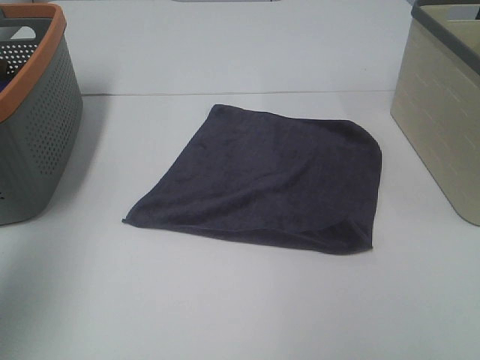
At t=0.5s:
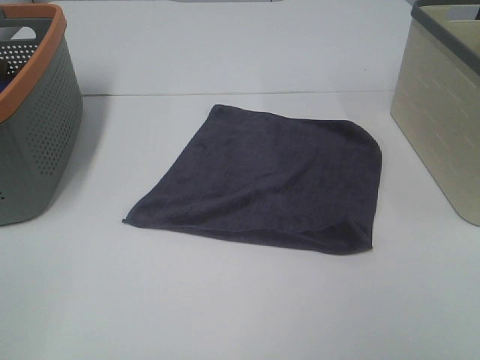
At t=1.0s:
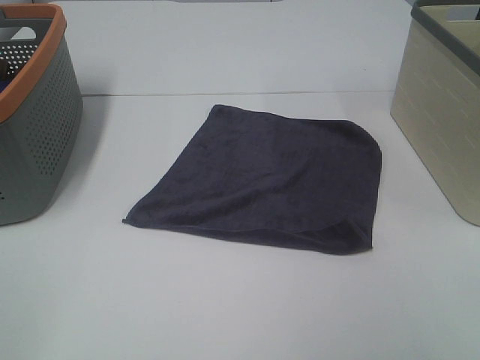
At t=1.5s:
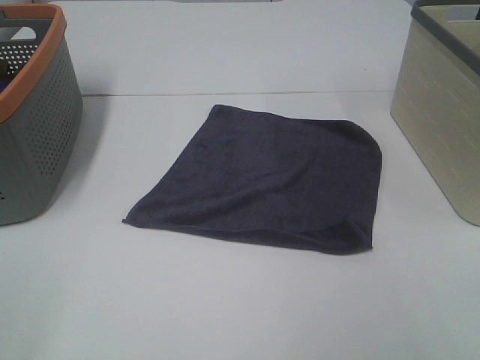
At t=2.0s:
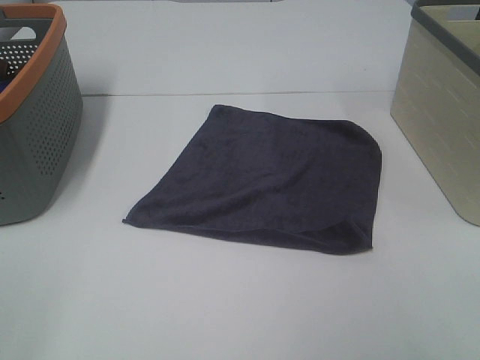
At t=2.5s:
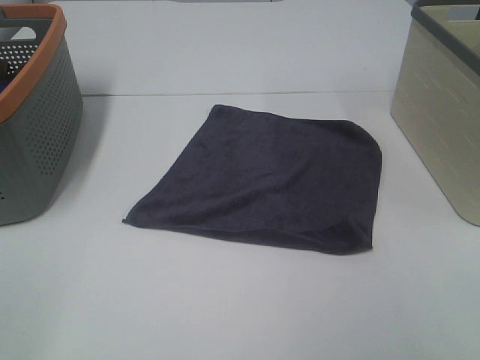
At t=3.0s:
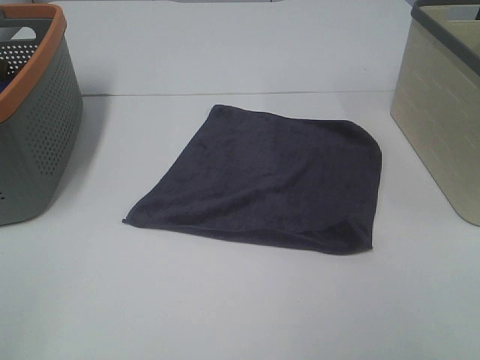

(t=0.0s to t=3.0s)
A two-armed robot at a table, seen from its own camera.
Task of the whole recording: Remove the towel and place it.
t=0.0s - t=1.5s: The left gripper is displaced backward and downward by approximately 20 cm.
